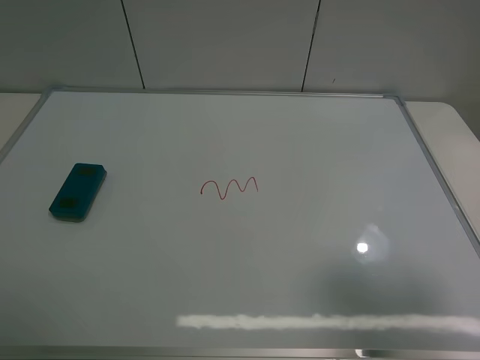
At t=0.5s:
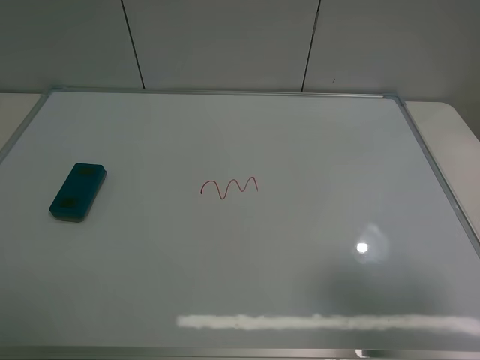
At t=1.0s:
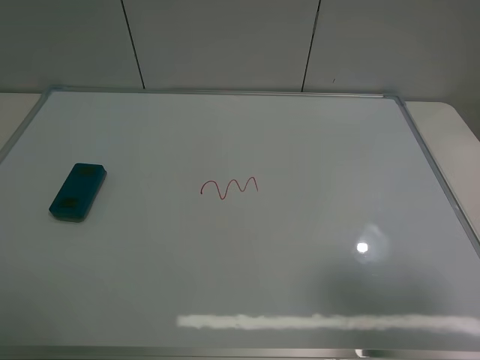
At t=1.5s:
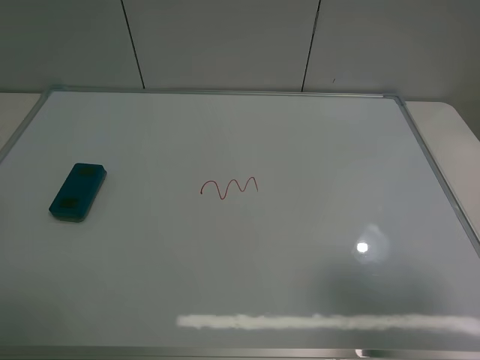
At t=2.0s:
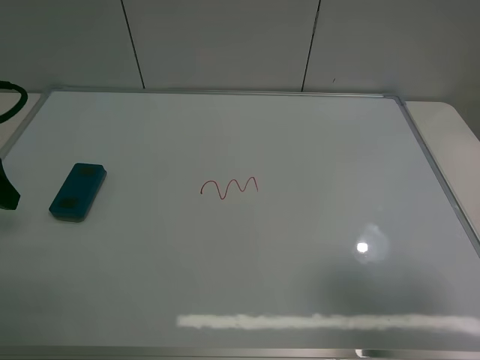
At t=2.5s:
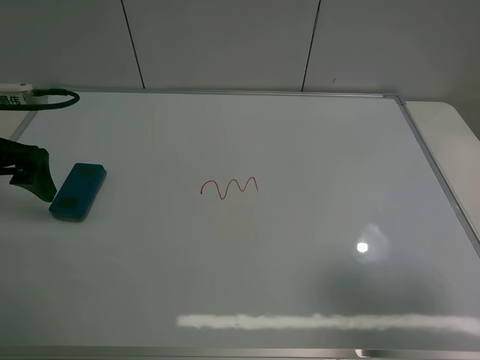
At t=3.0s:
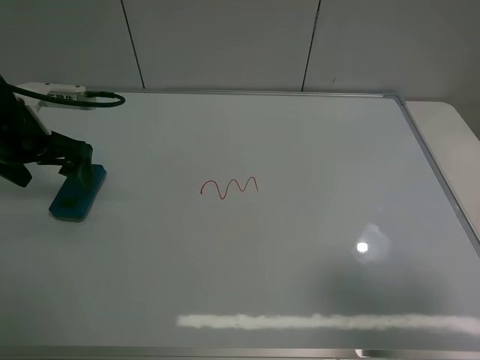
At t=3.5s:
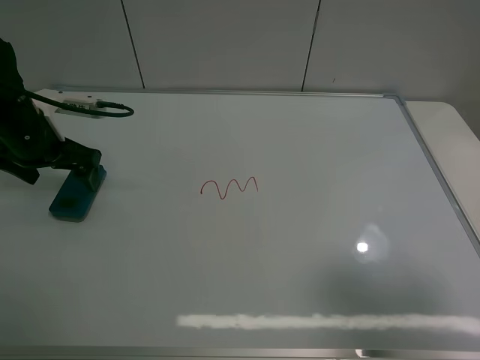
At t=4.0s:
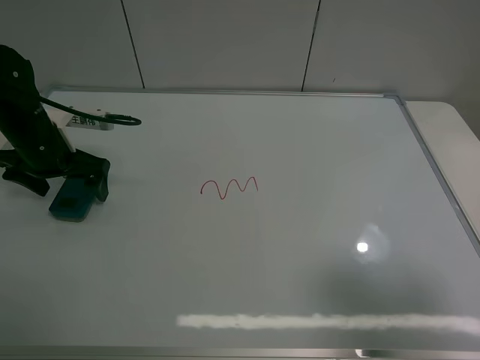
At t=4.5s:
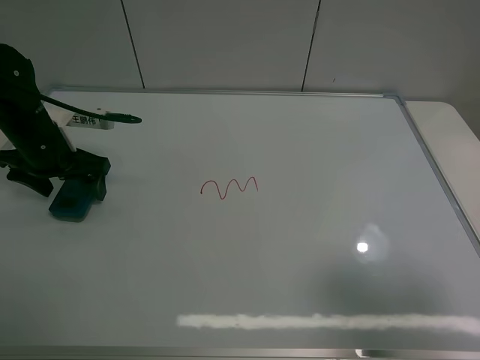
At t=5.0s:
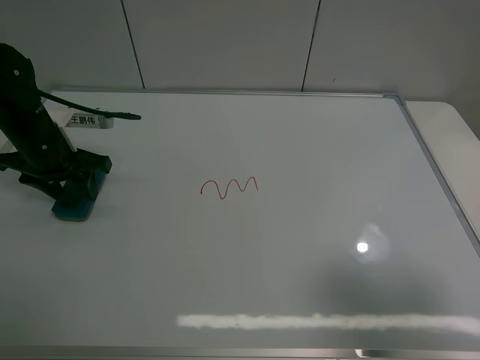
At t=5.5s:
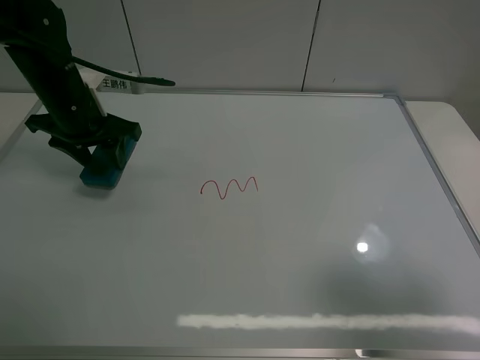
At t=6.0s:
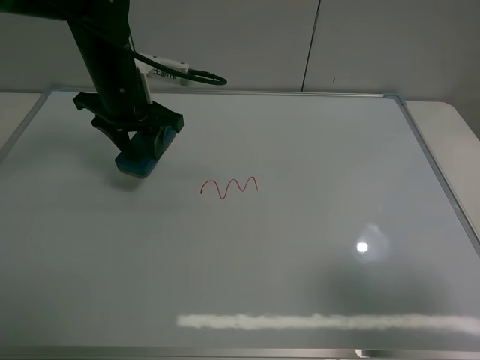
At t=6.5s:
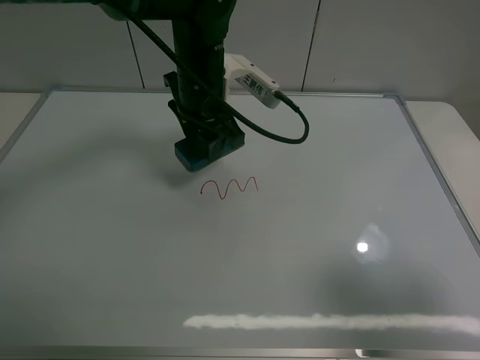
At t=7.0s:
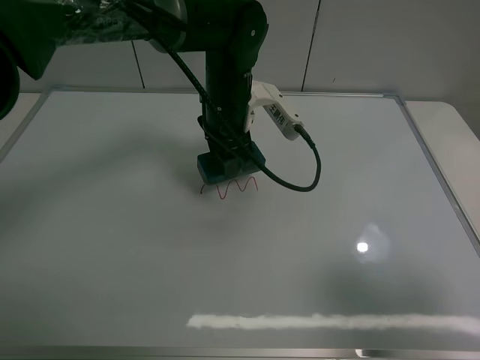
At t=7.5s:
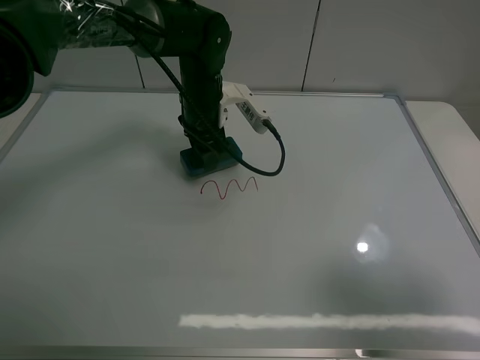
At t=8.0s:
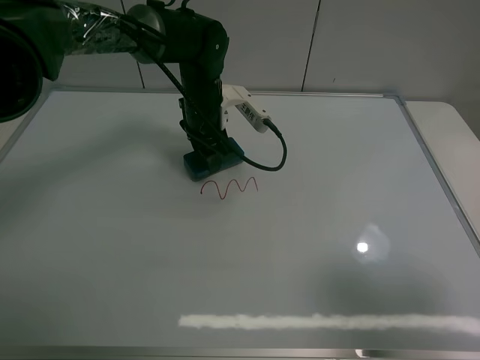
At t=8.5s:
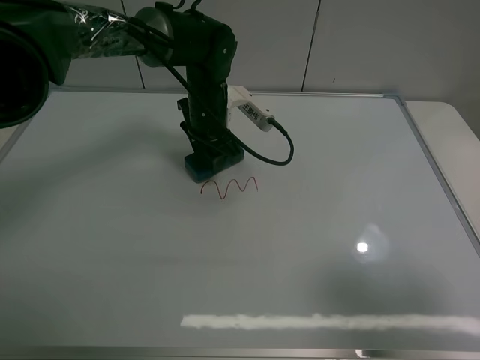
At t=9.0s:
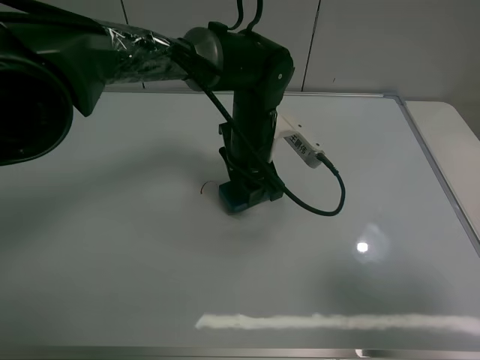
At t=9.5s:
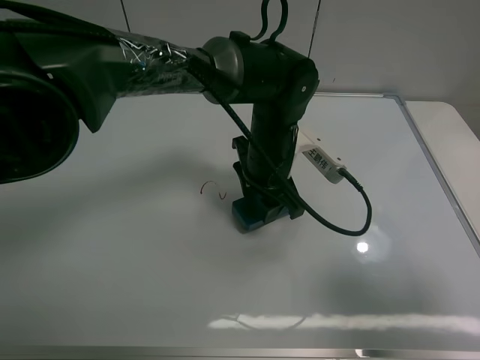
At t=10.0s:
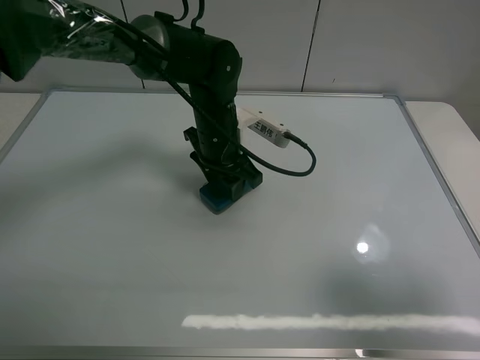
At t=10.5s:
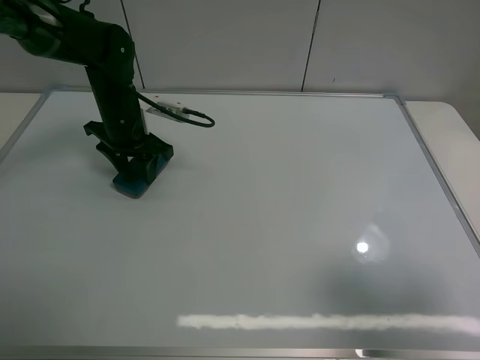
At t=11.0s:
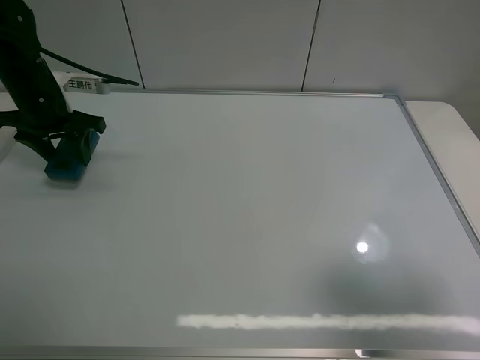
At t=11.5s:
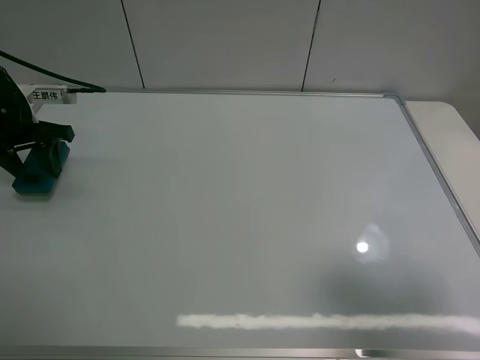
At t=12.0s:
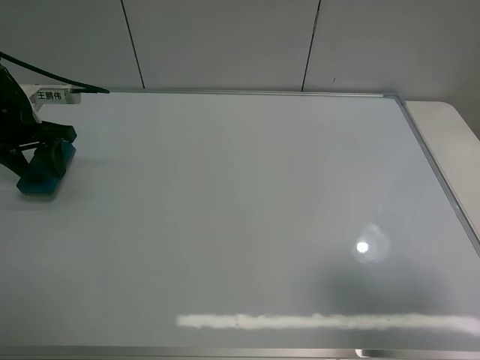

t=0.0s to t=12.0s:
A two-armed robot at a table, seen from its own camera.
Task of the whole recording: use the left claw to pick up the whiteboard eraser, wipe the notes on the whiteboard clean, and then put them back in place.
Step, t=0.0s to t=5.0s: Grasp the eraser with the left gripper.
Step, t=5.5s to t=10.5s: Grasp the eraser and wipe the blackboard with the left gripper.
t=0.0s to t=2.0s: The left gripper goes roughly 20 cm forward.
t=2.0s to t=4.0s: The left gripper travels forward and downward by approximately 15 cm.
t=4.0s to t=6.0s: The left gripper moves to the right and upward, roughly 15 cm, and closes its fingers.
t=6.0s to t=8.0s: The left gripper shifts some 10 cm to the right, downward and forward.
t=8.0s to t=10.0s: The left gripper travels backward by about 5 cm, and goes to the right and returns, roughly 10 cm each way.
t=10.0s to t=12.0s: The left gripper shifts approximately 30 cm to the left.

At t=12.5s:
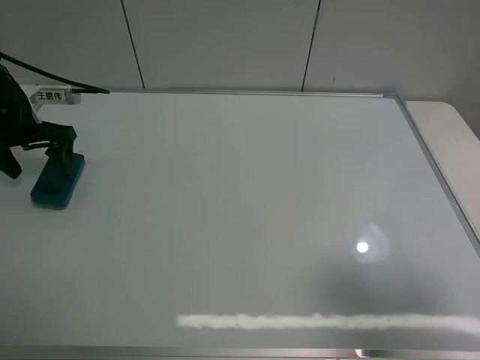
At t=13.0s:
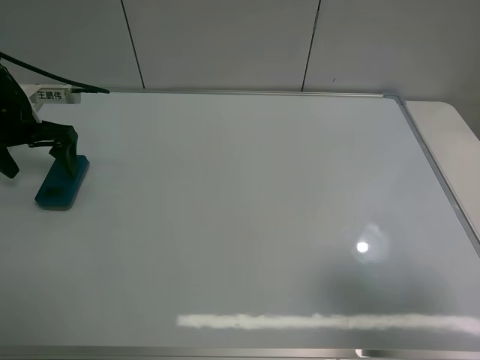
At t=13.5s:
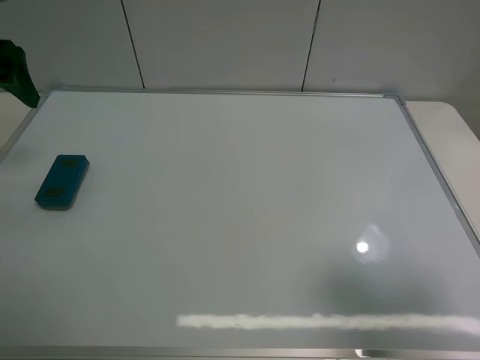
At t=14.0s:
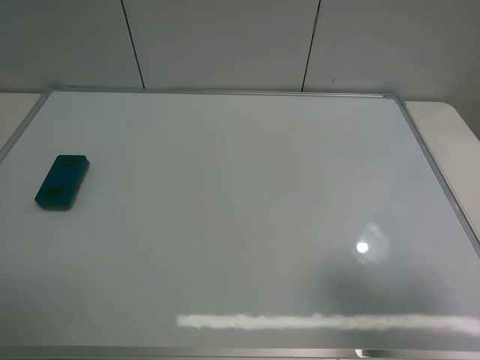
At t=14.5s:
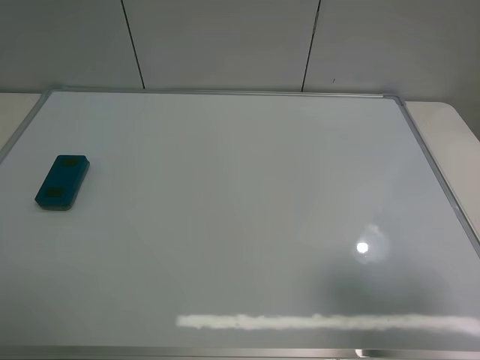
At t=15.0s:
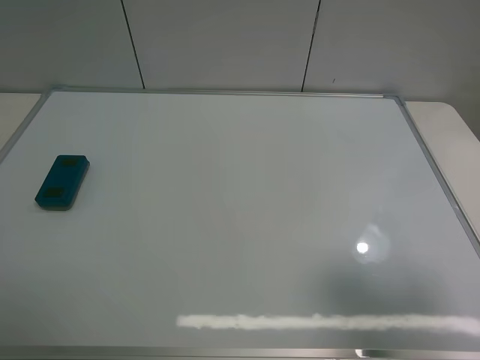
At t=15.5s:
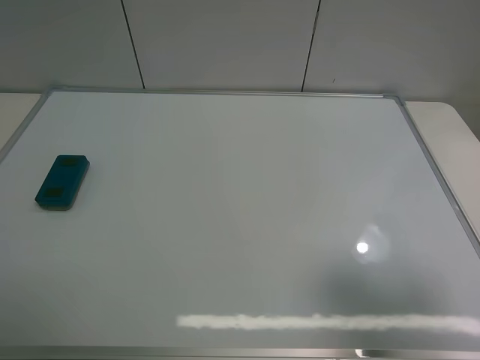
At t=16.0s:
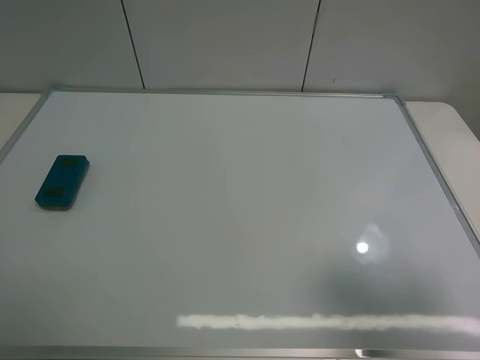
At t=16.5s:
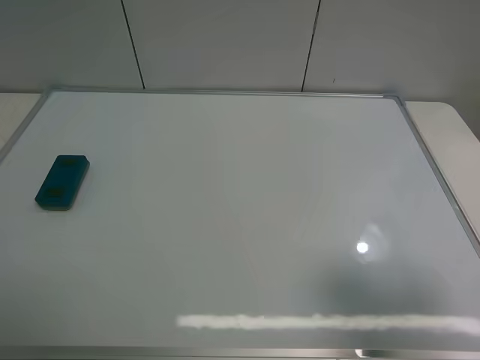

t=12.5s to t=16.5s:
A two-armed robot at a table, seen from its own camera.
Task of the whole recording: use the left claw to pick up the whiteboard eraser, wipe the notes on the whiteboard clean, and then put them back in place.
t=12.5s to t=14.5s: The left gripper moves backward and upward, some 40 cm.
